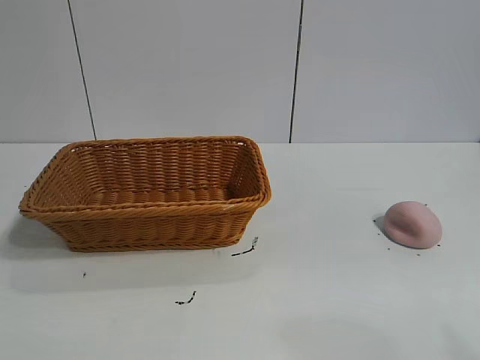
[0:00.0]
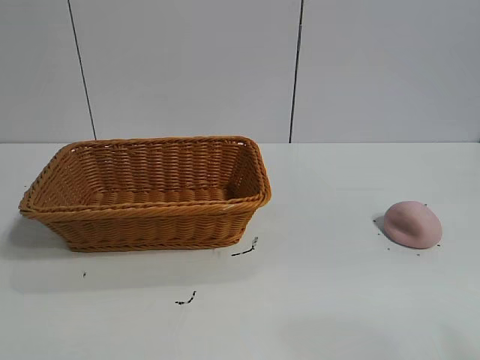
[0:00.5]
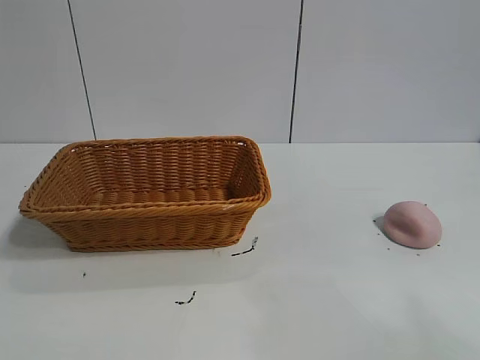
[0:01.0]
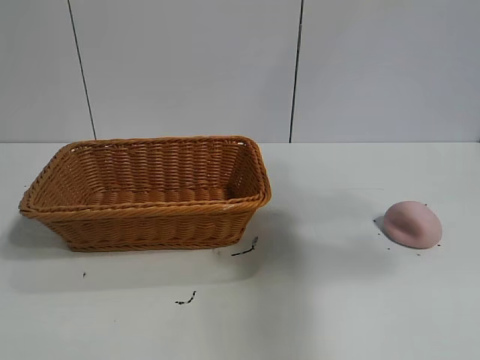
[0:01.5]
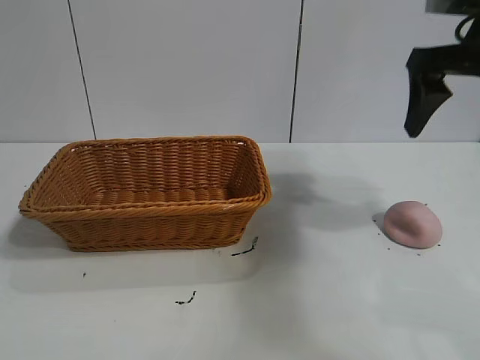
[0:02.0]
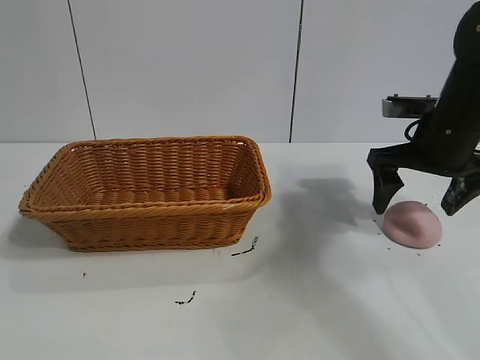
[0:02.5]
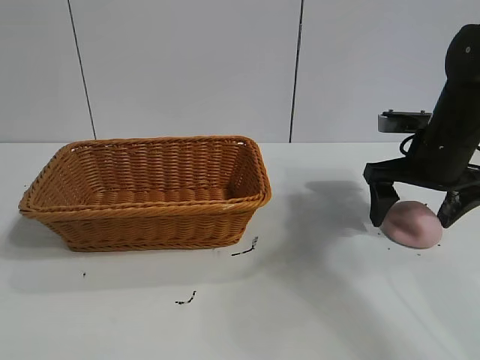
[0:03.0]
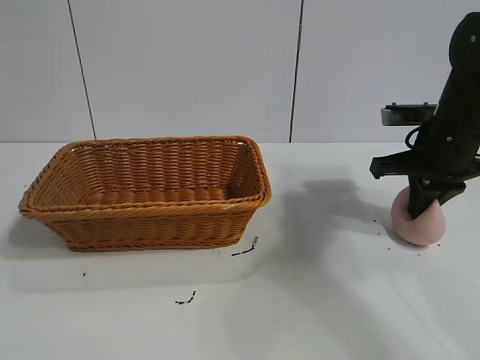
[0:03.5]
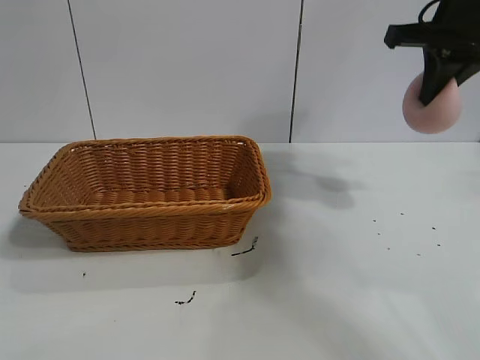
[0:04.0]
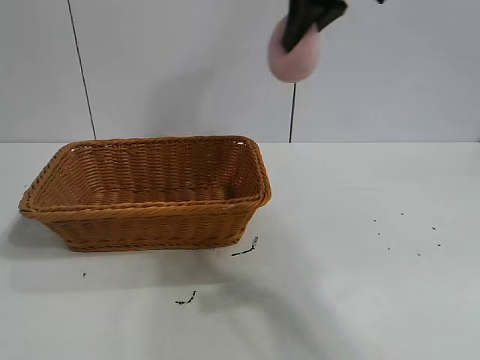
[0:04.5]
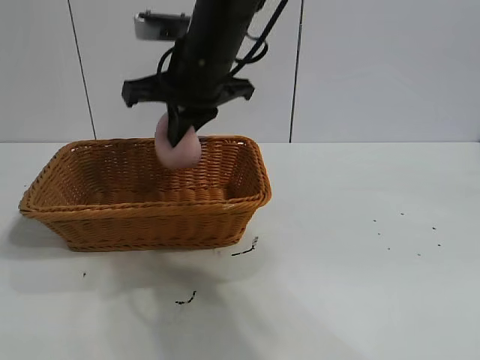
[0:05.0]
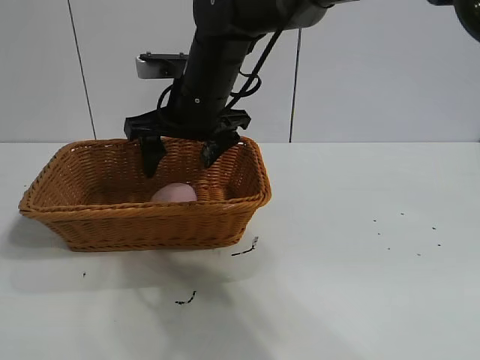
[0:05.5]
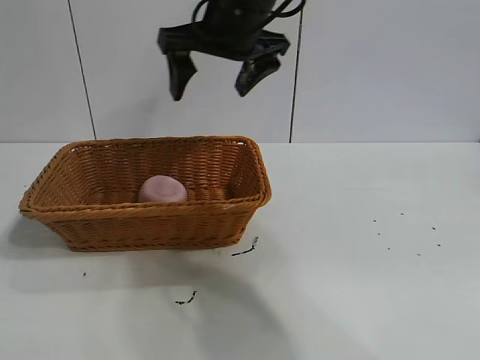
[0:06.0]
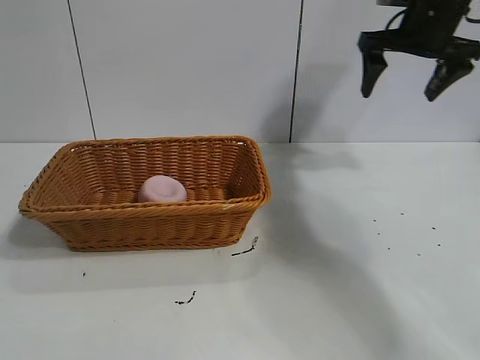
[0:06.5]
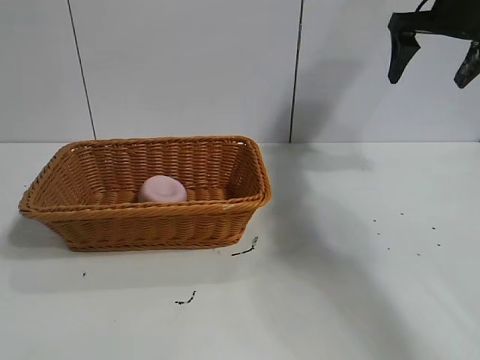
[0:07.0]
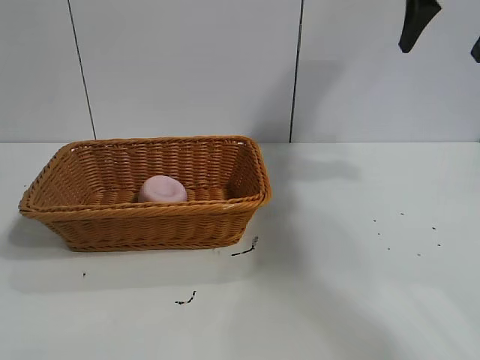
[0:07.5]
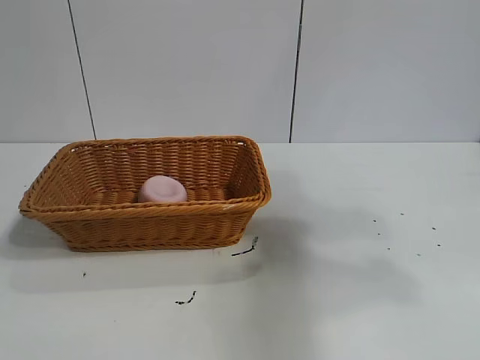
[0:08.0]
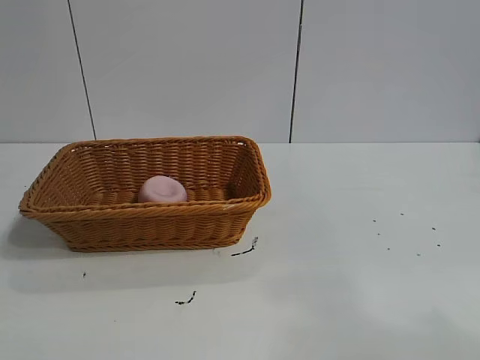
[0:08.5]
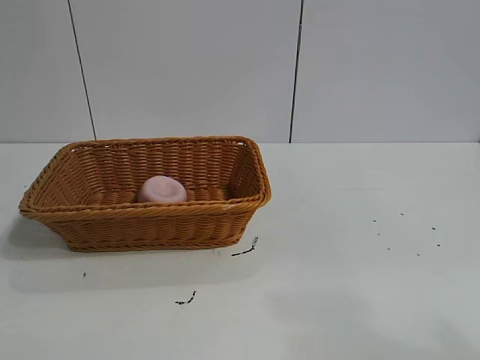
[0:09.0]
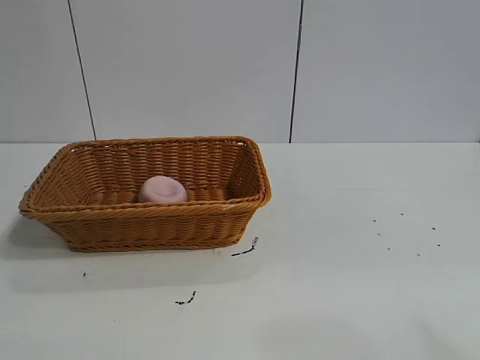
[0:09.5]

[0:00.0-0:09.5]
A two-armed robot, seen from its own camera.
Task of the whole recording: pick up the peach and put it into the basket.
Step, 0:01.0 to 0:03.0: Grasp the peach with right gripper.
Step, 0:03.5 to 0:05.5: Place the peach in the basket with right gripper.

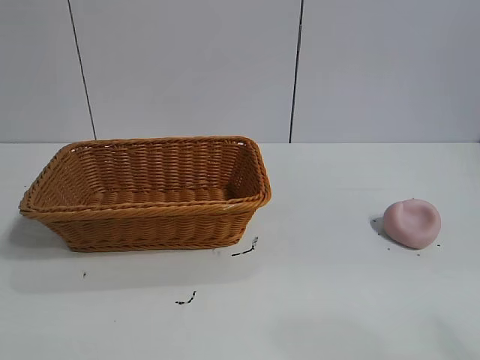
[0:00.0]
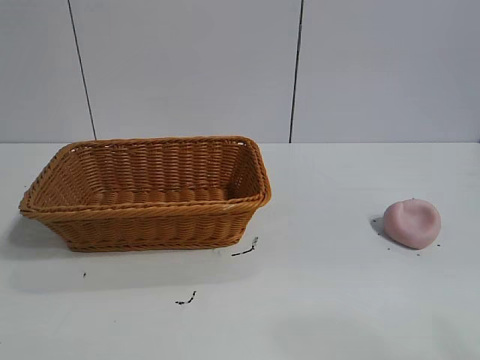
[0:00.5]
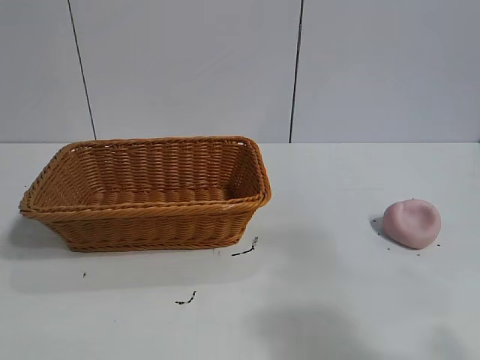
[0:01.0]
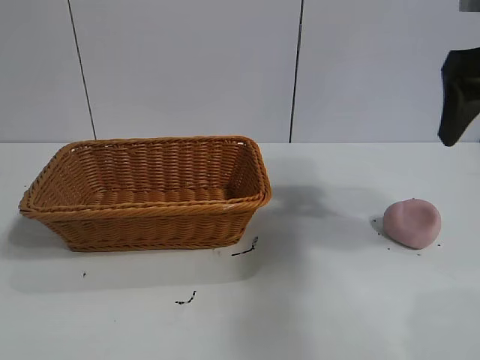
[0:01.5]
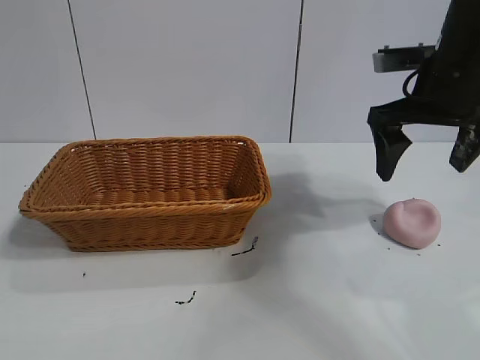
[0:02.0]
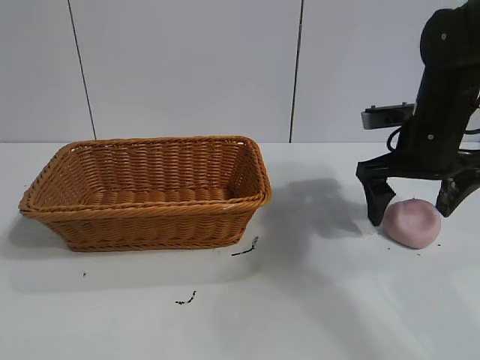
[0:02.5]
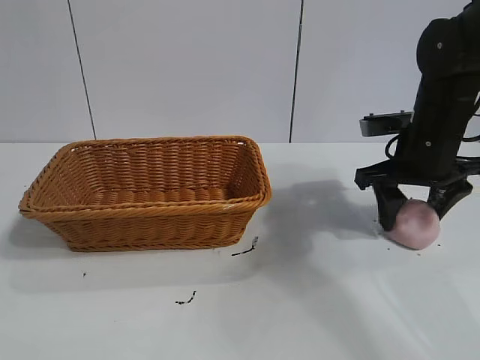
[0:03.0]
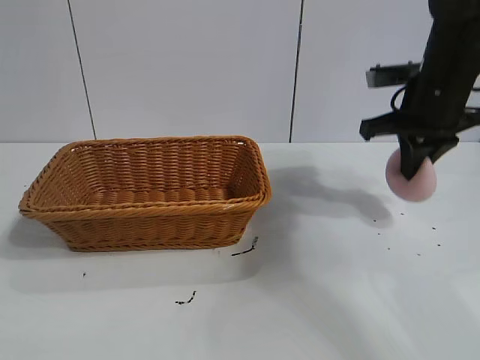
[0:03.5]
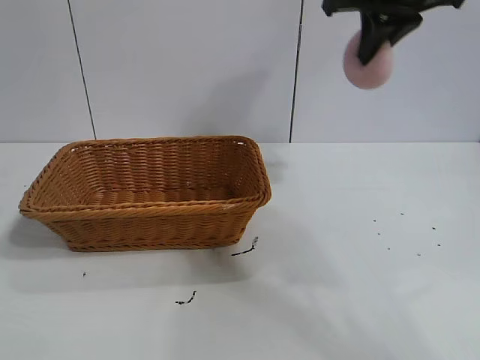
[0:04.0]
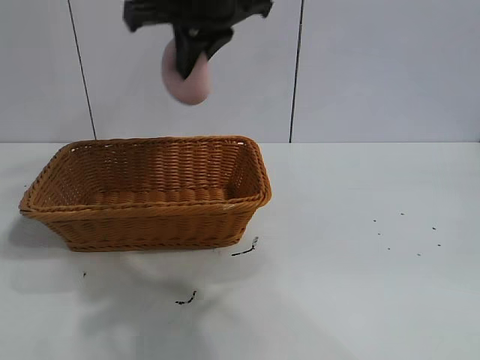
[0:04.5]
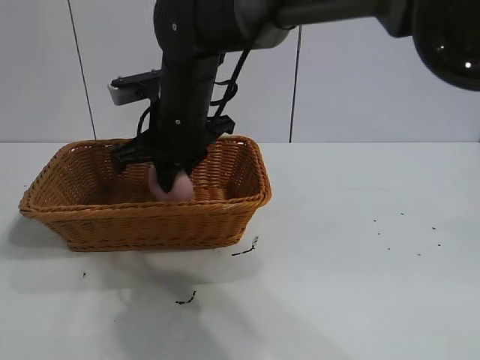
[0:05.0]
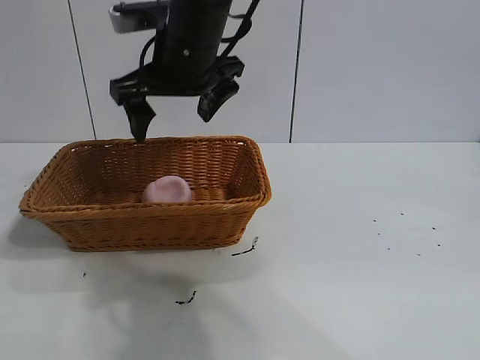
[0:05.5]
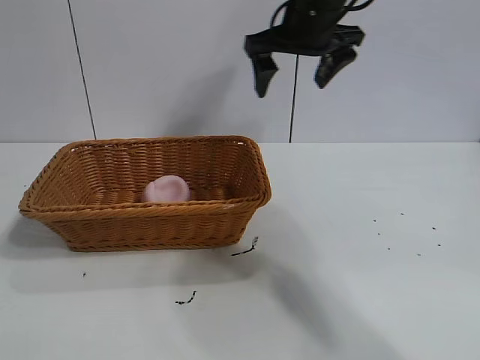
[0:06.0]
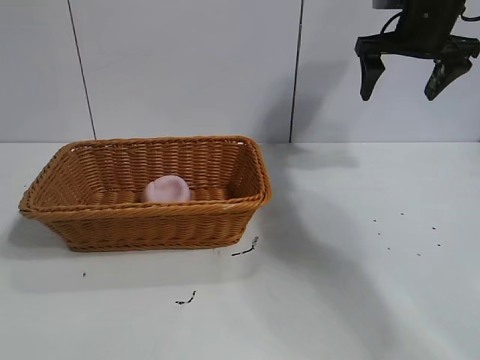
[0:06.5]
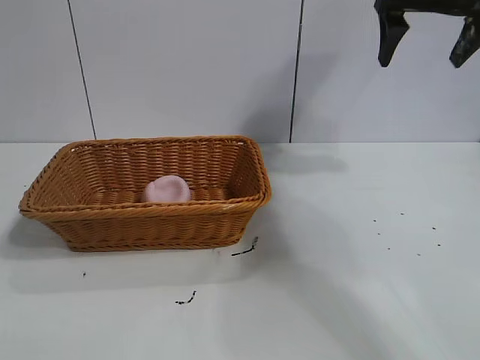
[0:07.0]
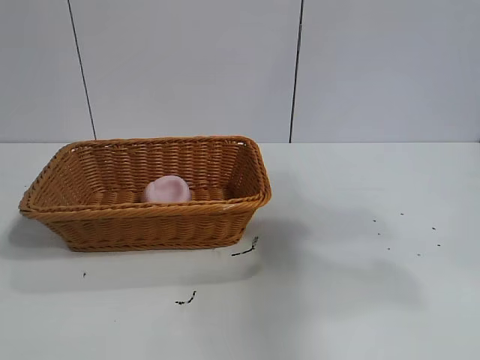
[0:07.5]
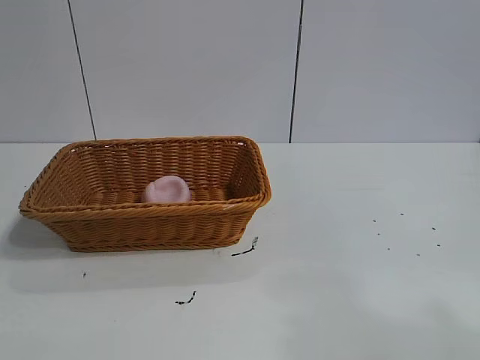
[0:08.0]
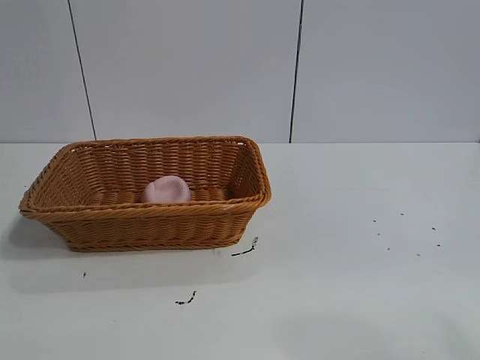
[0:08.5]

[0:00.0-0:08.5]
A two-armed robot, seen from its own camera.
Task of the whole recording: pick up the peach and put it into the basket.
Step, 0:00.5 to 0:03.0: Grasp the peach with right gripper.
Step, 0:03.5 to 0:05.0: Place the peach in the basket with right gripper.

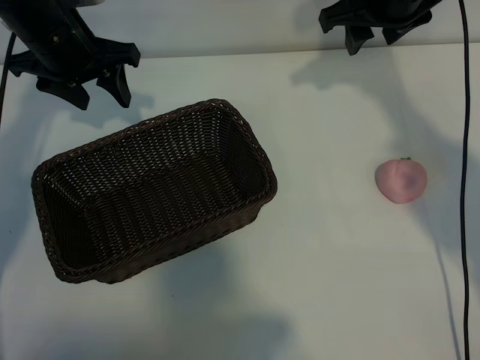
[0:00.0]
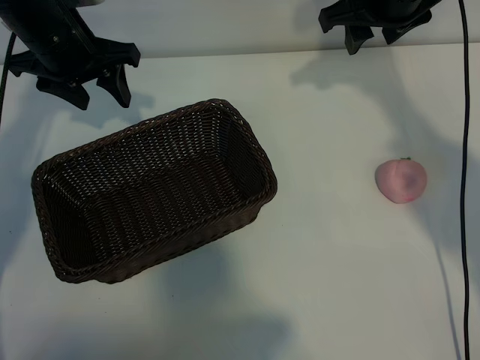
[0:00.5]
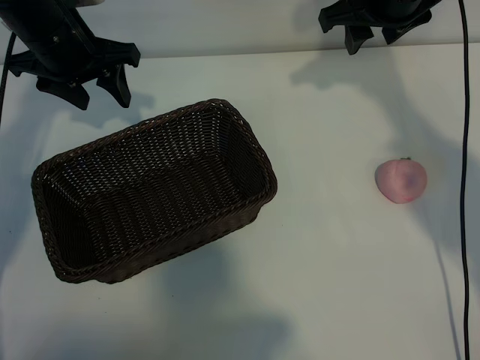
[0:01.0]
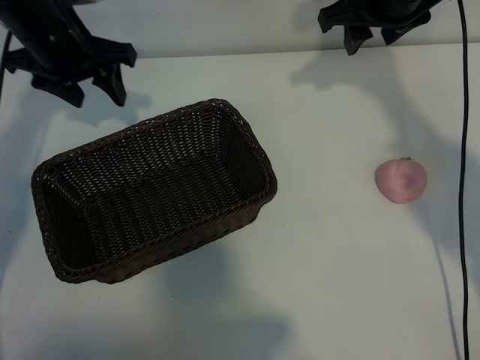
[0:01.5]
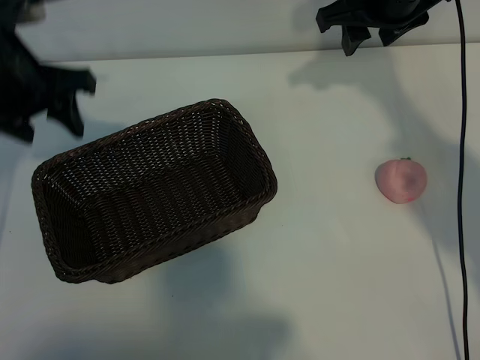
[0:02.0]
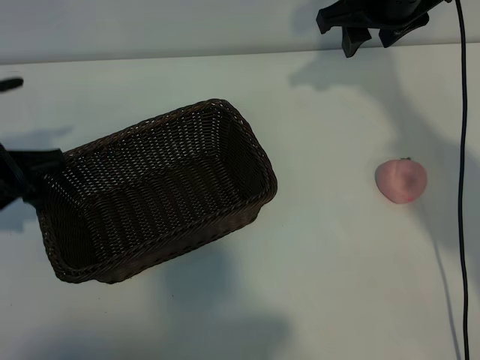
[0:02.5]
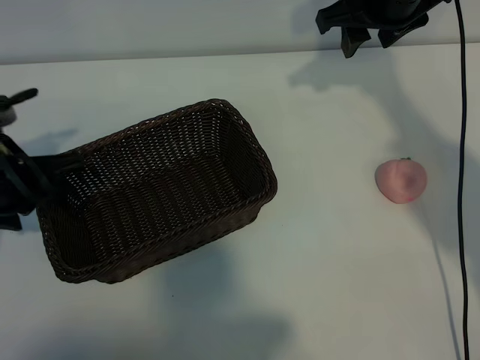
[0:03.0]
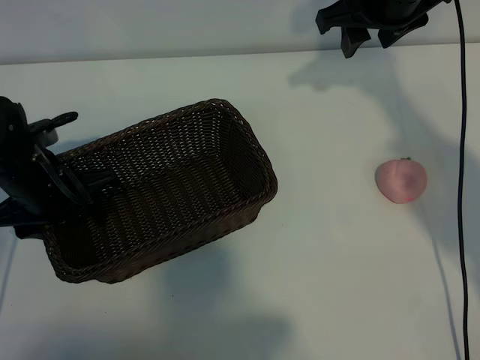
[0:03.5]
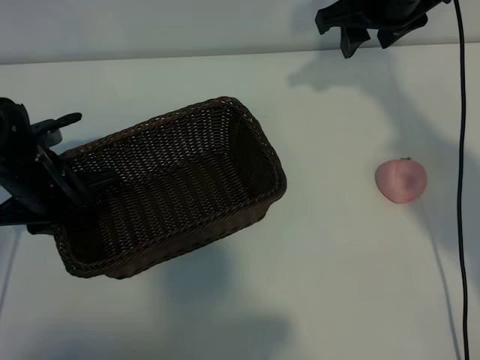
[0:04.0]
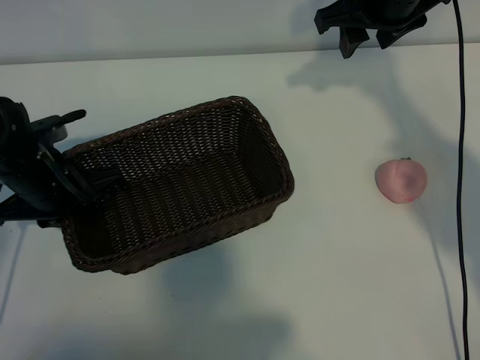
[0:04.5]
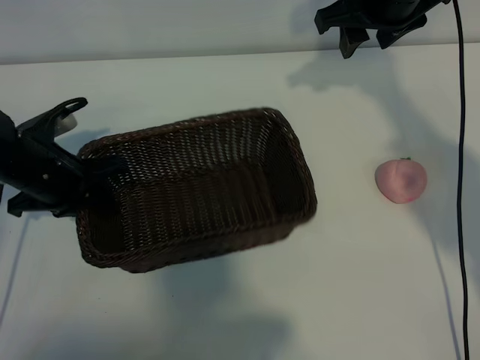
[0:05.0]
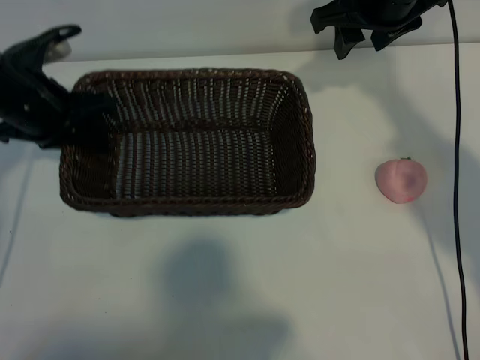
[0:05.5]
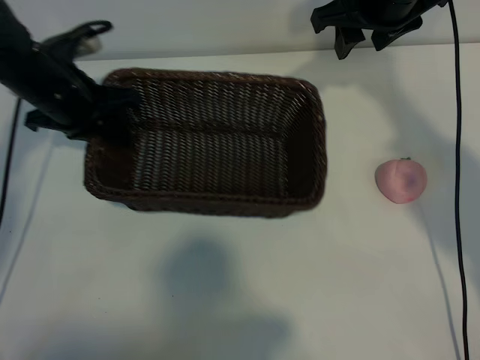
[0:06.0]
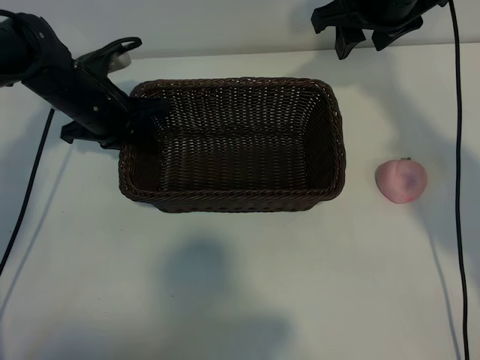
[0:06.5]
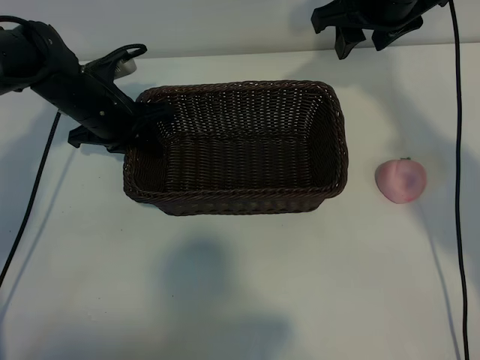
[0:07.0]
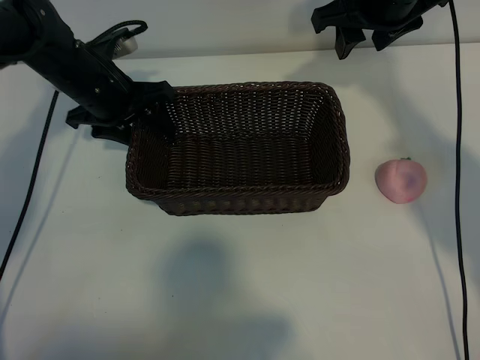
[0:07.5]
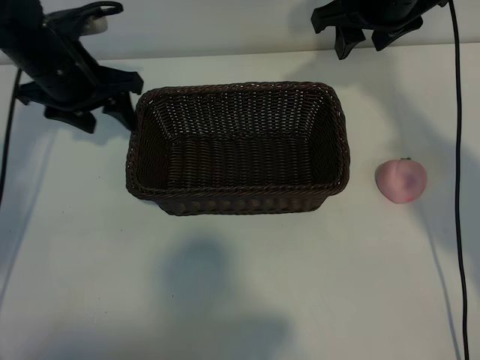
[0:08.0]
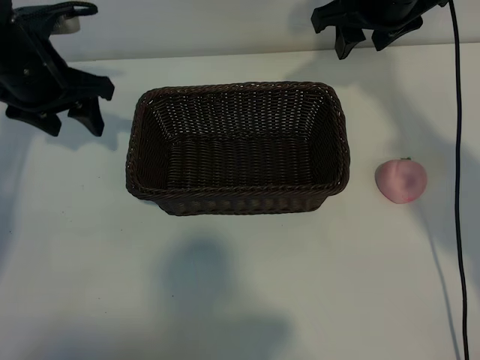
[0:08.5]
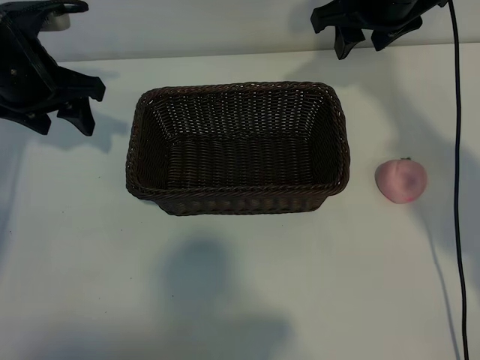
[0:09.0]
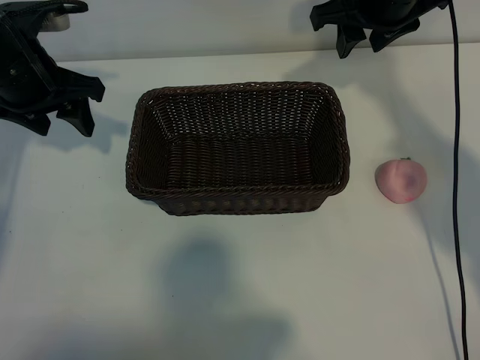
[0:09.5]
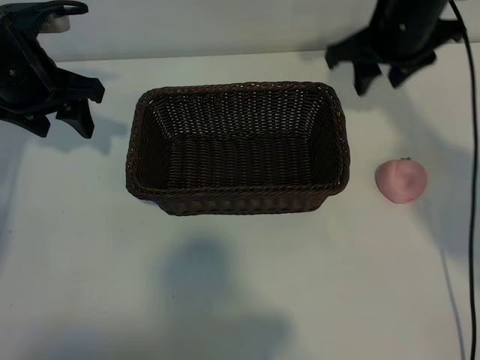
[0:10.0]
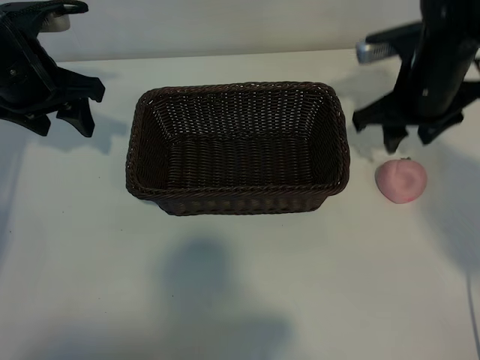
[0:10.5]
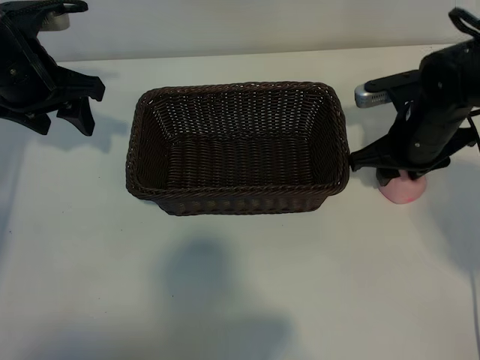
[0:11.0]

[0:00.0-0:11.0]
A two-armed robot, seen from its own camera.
Task of the whole recording: pick up the peach and put it into the basket.
Step, 0:01.5 to 0:04.0: Grasp the basket with left gripper.
Step, 0:04.5 to 0:07.5: Place the basket in the center of view with left gripper.
